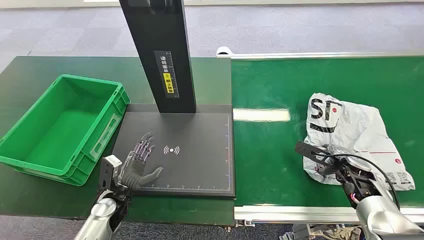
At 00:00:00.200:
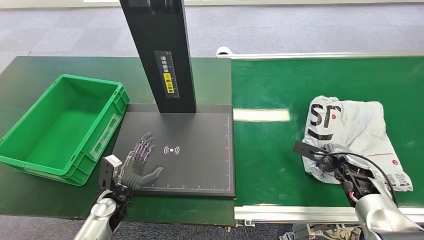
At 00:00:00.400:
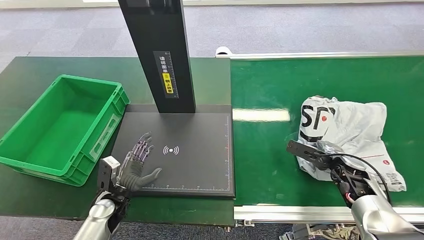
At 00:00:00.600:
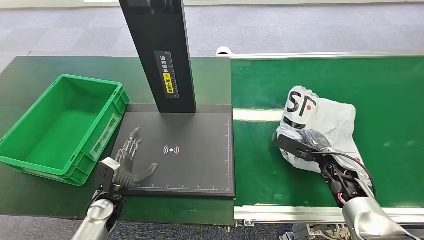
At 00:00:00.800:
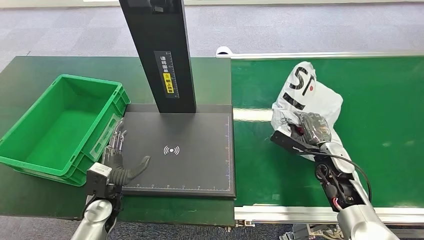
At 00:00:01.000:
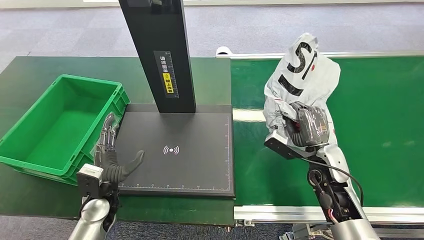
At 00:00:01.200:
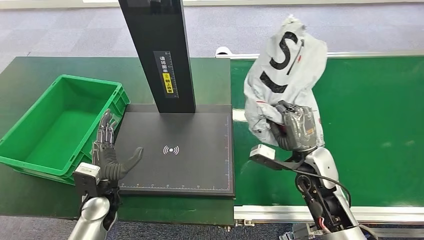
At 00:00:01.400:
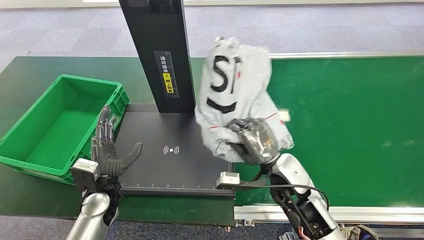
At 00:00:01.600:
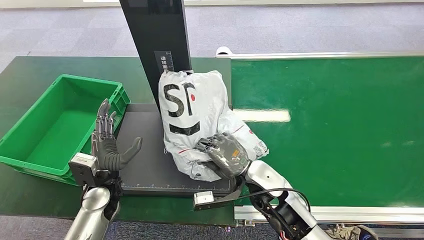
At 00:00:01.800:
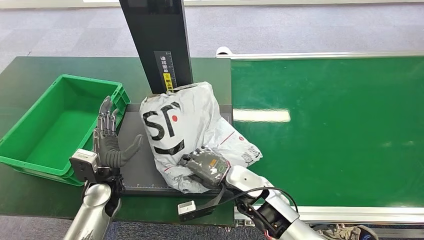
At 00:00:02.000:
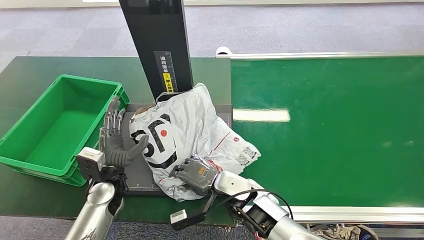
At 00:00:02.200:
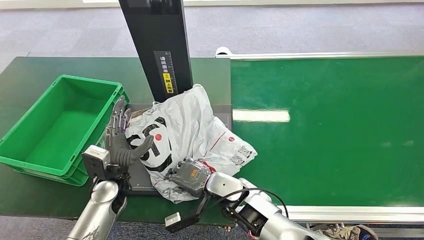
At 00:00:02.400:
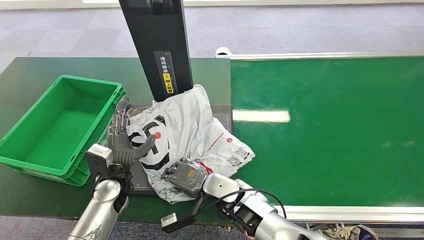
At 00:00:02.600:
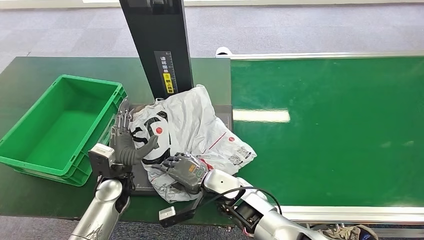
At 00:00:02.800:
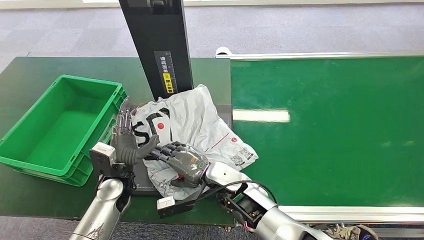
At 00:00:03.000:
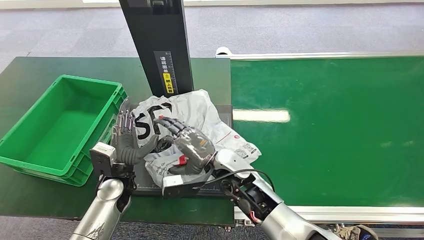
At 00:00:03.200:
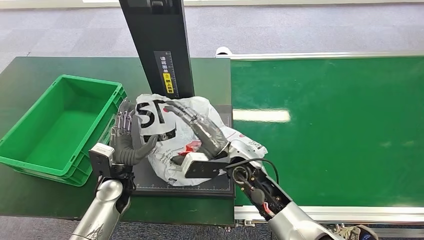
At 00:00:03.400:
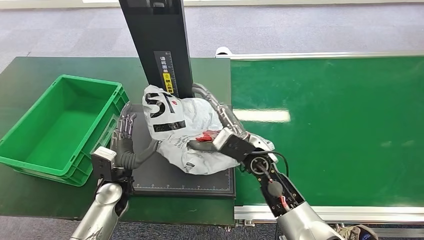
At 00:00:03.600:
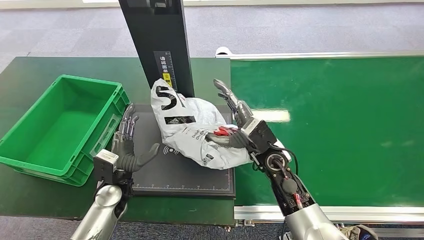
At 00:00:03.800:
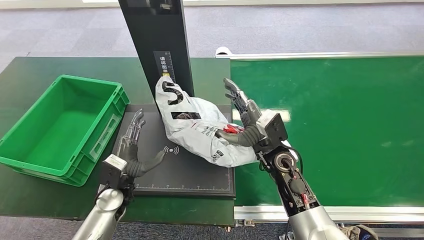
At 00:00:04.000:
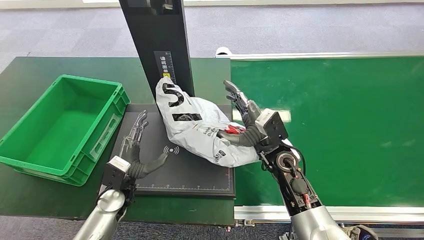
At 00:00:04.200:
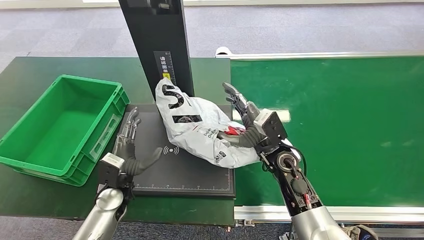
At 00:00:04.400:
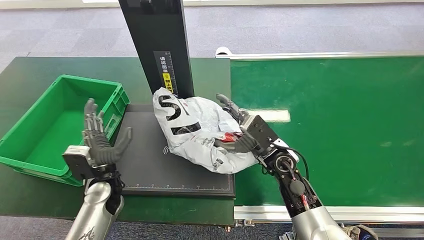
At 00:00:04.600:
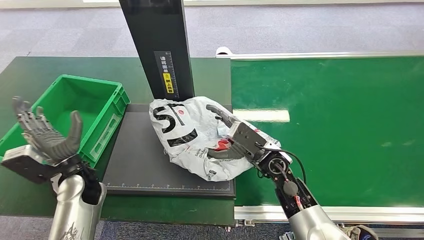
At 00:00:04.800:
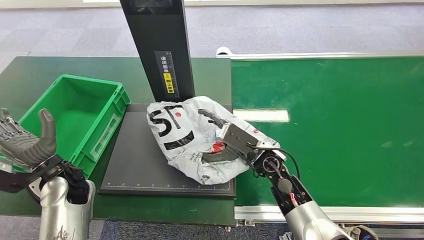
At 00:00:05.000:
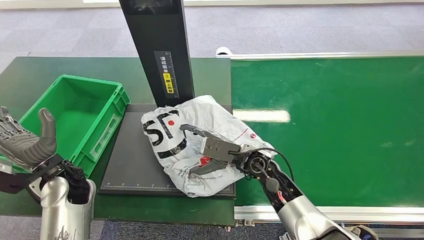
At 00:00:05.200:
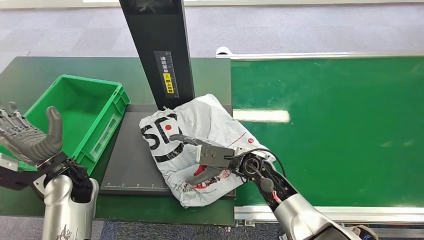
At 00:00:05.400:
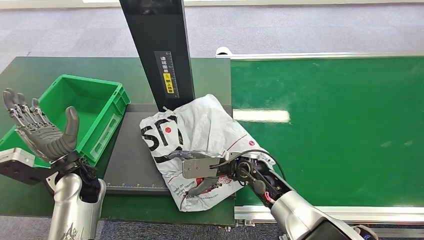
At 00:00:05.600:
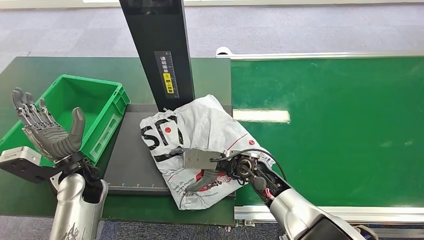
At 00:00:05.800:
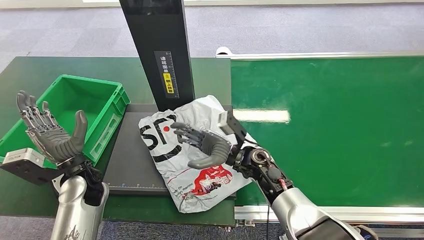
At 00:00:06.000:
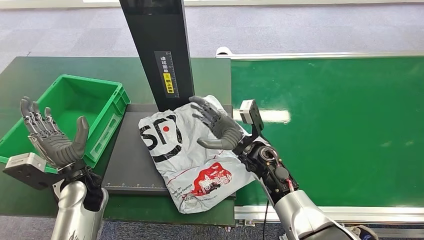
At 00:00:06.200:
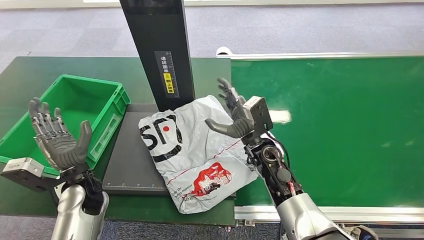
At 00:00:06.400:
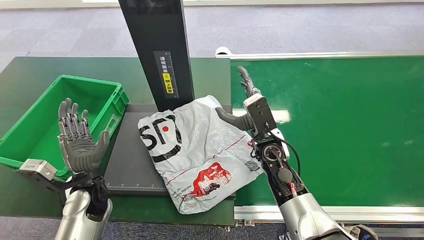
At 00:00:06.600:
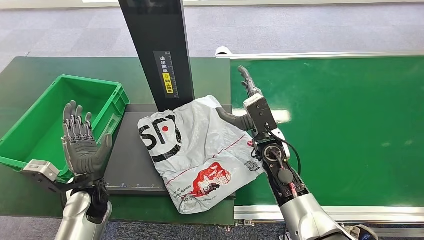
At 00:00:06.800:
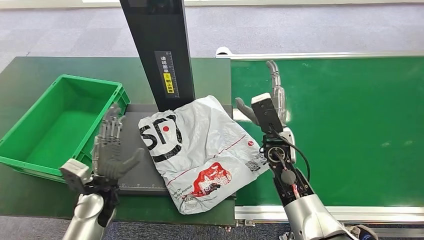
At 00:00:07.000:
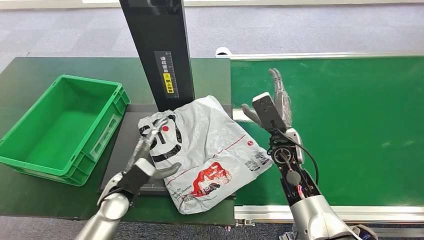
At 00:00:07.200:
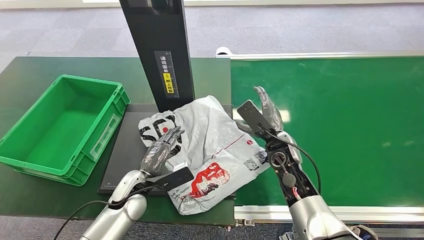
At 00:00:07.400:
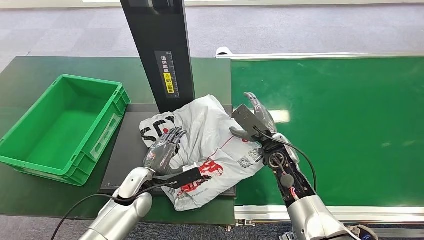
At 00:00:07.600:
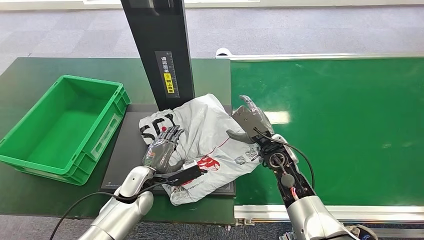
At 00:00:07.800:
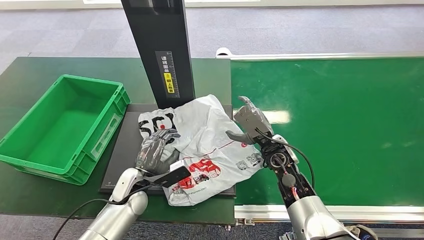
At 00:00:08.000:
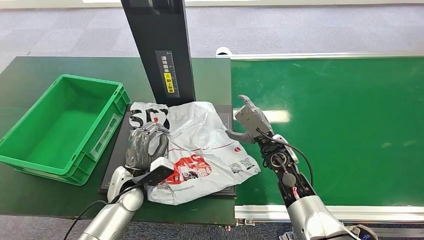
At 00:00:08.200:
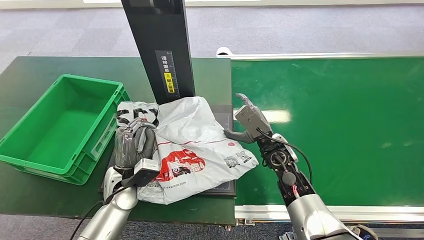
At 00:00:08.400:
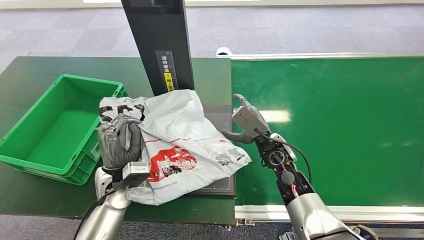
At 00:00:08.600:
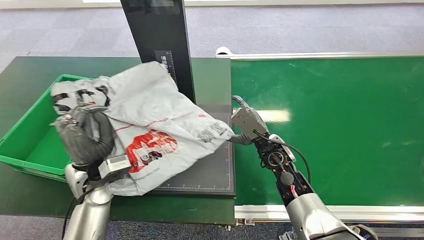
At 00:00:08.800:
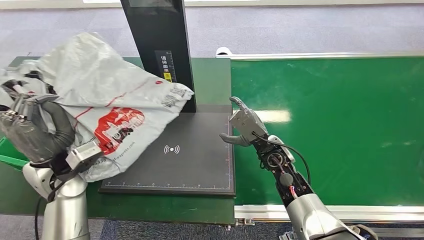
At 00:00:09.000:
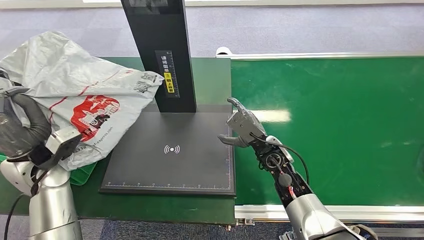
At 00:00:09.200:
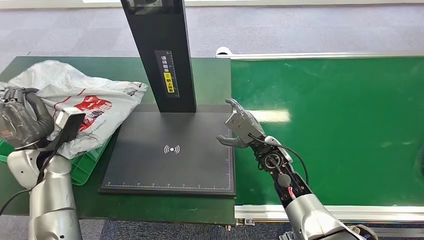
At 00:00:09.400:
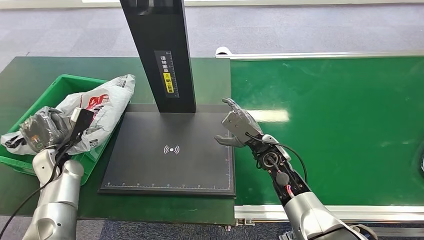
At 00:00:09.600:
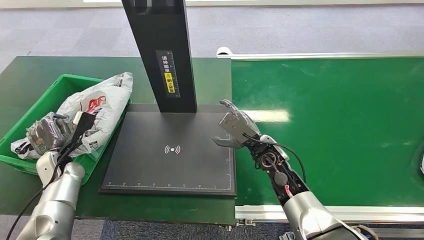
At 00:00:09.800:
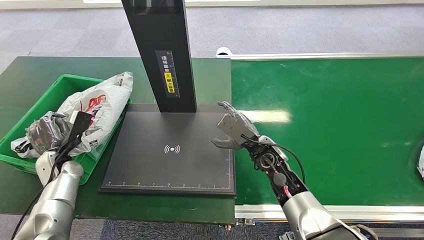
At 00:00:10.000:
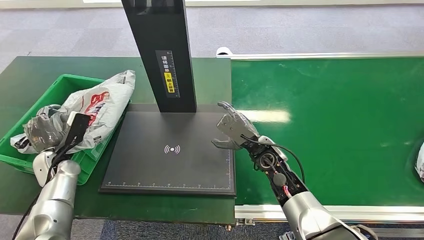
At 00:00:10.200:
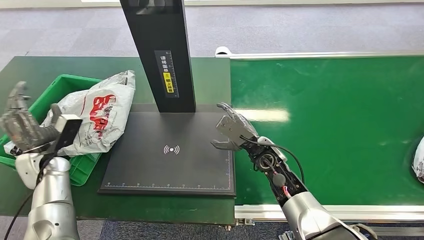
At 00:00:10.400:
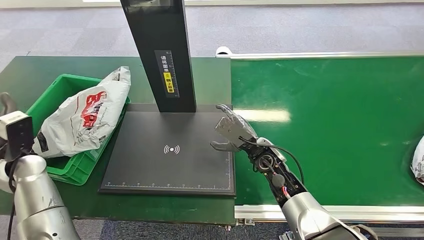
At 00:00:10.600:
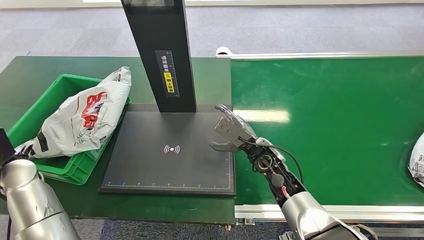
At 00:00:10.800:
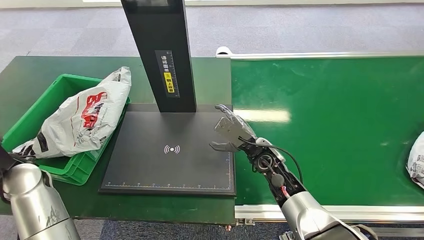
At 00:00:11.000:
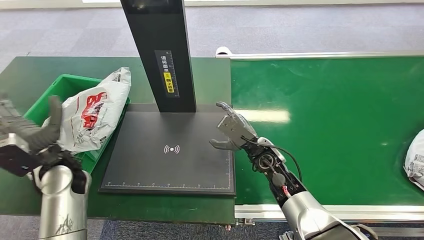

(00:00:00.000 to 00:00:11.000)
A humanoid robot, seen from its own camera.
Step, 00:00:00.000 - 00:00:01.400: Pick up the package from the conveyor belt.
Step, 00:00:01.600 - 00:00:07.200: Place the package onto the inbound machine.
Step, 00:00:07.400 - 00:00:09.200: Pick up the package from the inbound machine.
Step, 00:00:09.400 - 00:00:11.000: Place the package into the parcel locker.
00:00:01.600 - 00:00:03.200: The right hand is displaced to the left by approximately 5 cm.
00:00:09.400 - 00:00:11.000: The left hand moves upward and to the right, roughly 10 cm.
